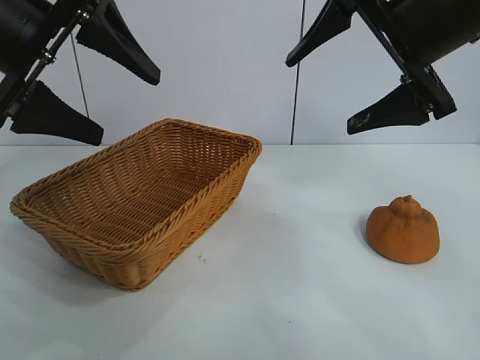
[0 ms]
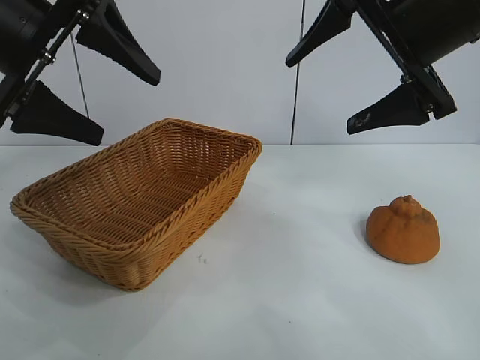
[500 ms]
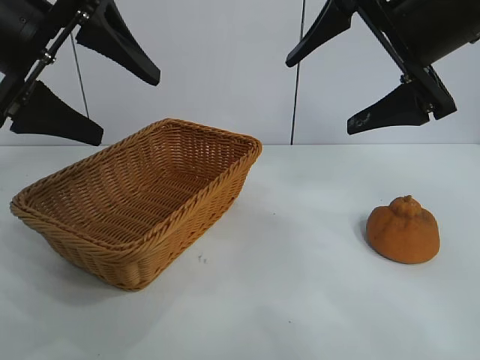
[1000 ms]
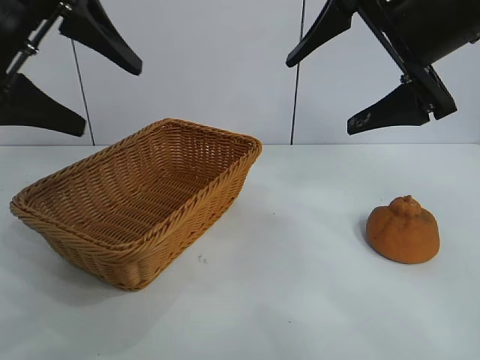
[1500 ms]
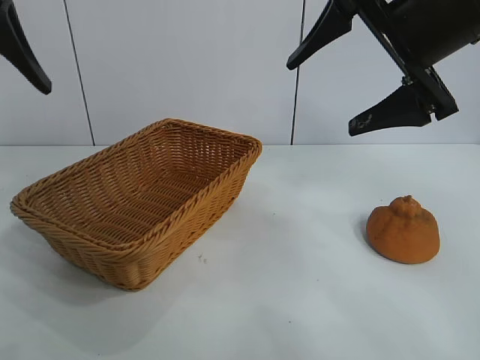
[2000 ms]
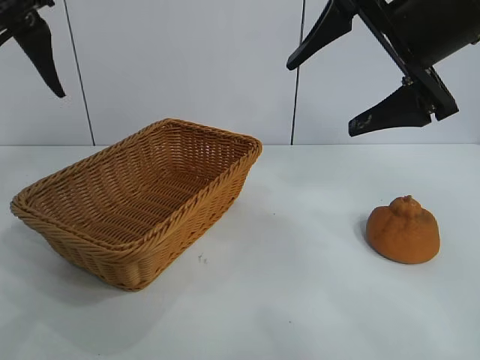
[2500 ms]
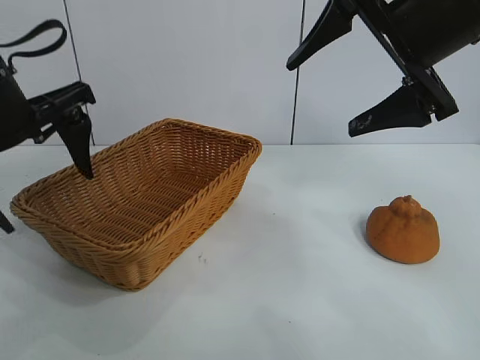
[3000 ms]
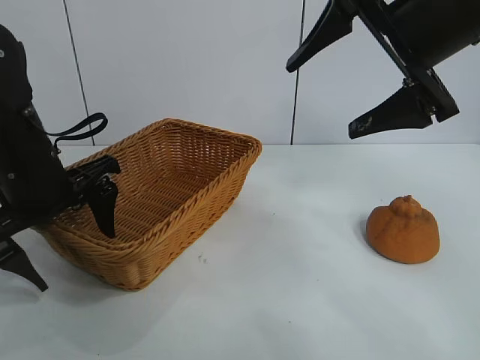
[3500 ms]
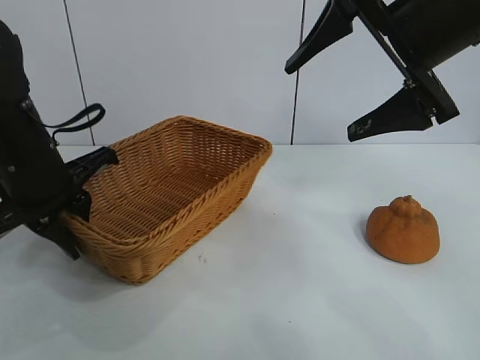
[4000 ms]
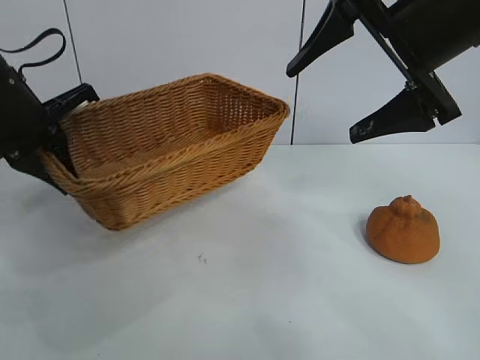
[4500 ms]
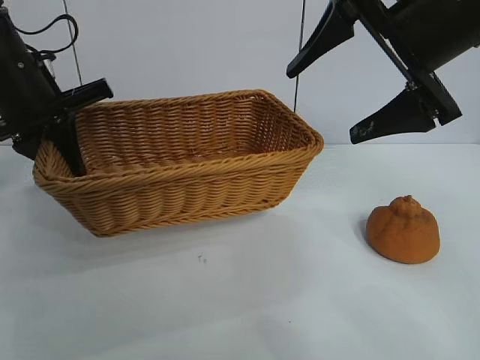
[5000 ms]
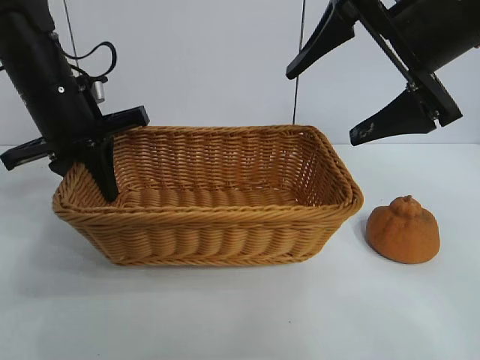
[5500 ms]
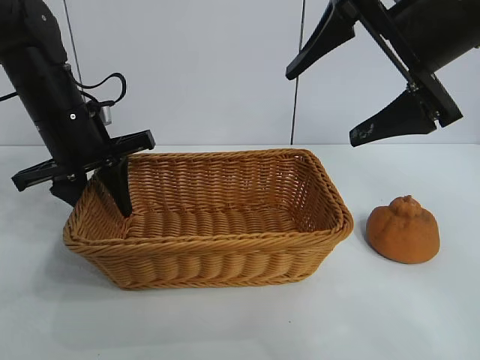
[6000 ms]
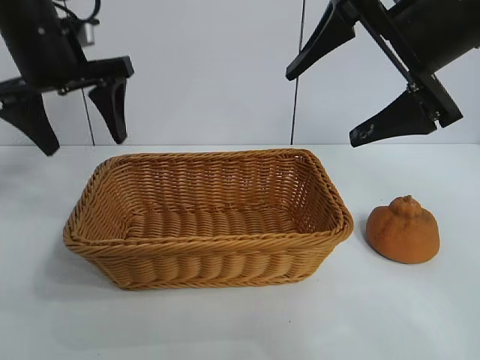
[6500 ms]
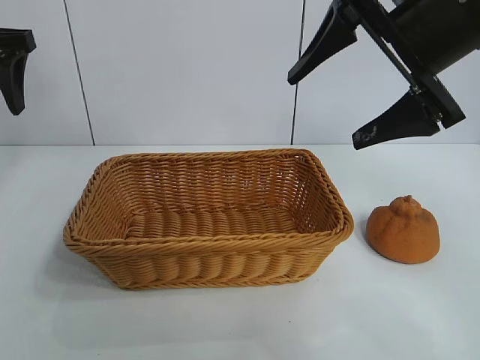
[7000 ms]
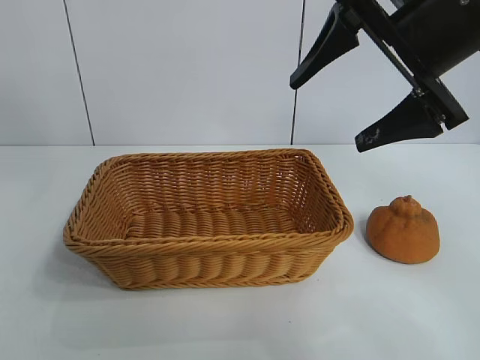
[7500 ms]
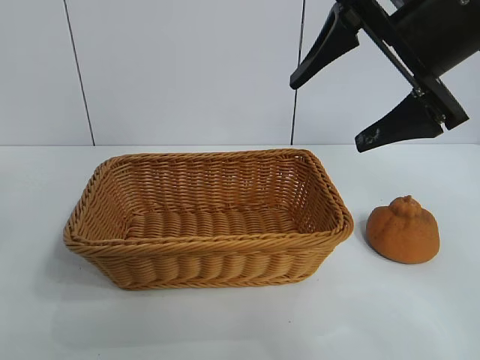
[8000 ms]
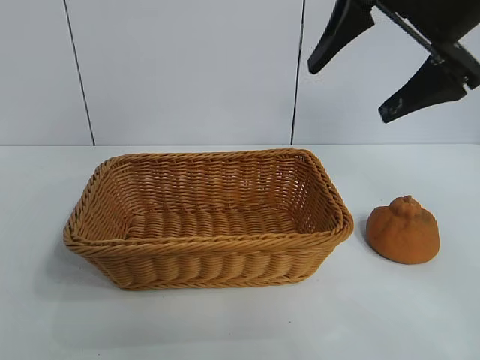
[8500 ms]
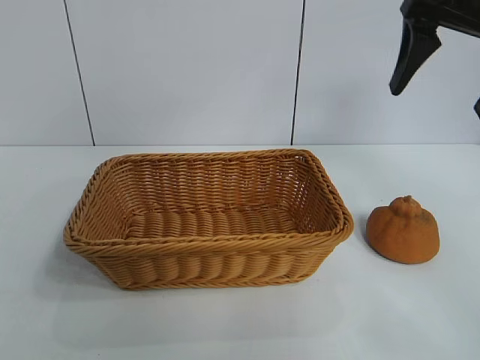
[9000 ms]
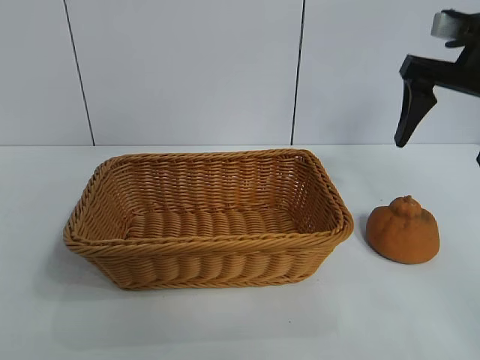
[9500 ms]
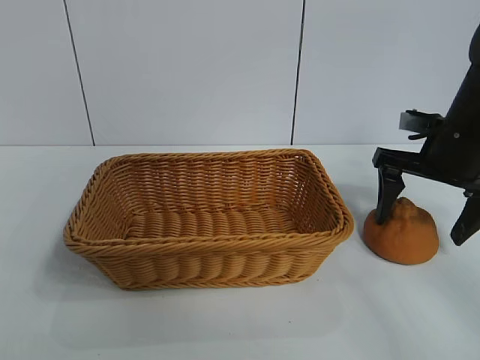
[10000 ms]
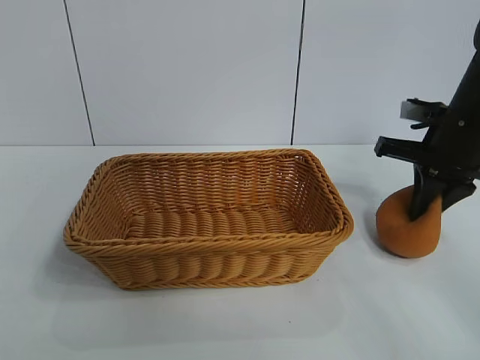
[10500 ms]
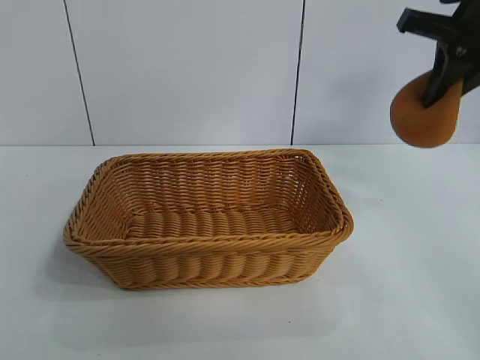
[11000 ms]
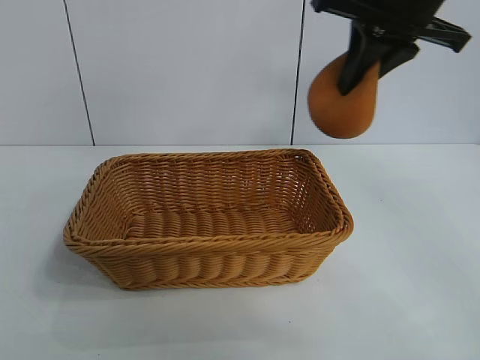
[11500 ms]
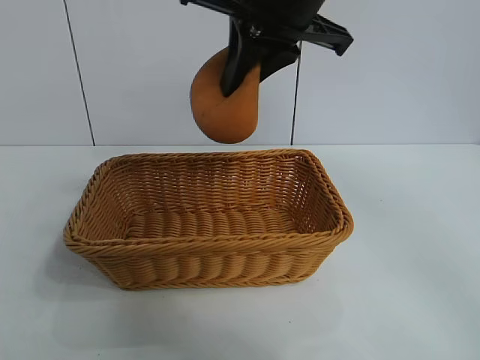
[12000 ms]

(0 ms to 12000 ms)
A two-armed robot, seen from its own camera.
Task of the whole recording: pick up the orange and put it into the basket.
Step, 1000 ms - 4000 ms: Grasp the basket with left gripper.
Step, 4500 ms - 6000 ms: Place the basket in the center of view with left gripper.
Step, 6500 ms - 10000 ms: Grasp the orange with right gripper.

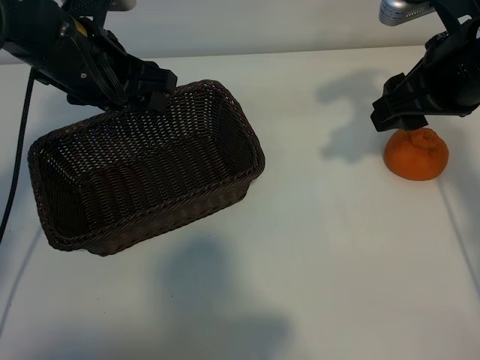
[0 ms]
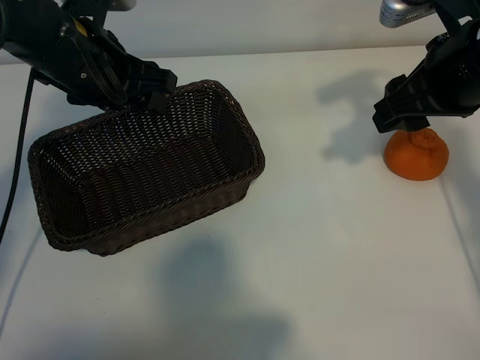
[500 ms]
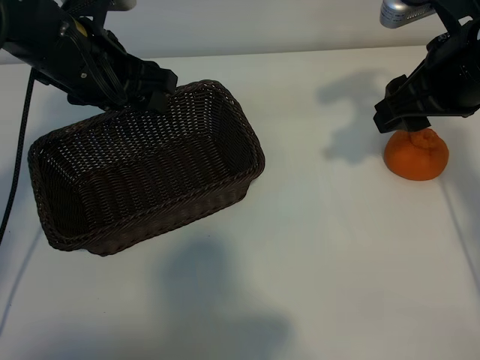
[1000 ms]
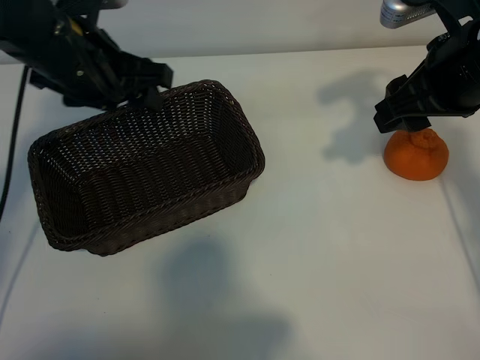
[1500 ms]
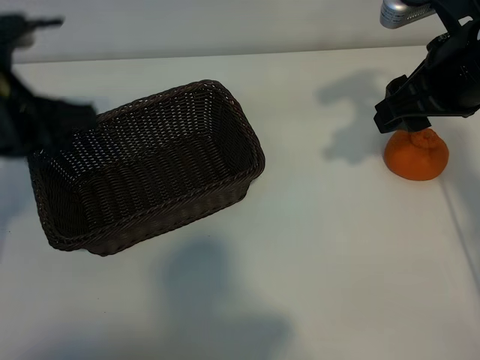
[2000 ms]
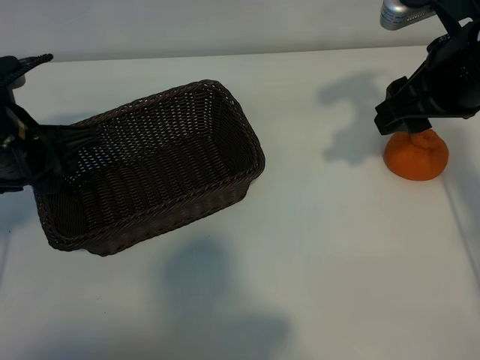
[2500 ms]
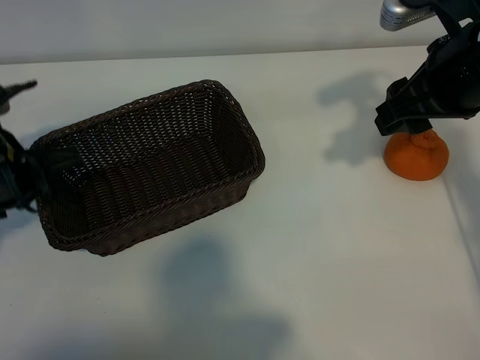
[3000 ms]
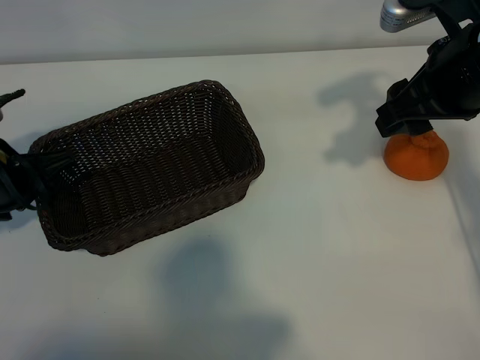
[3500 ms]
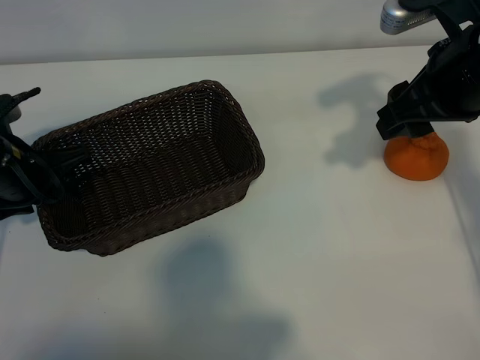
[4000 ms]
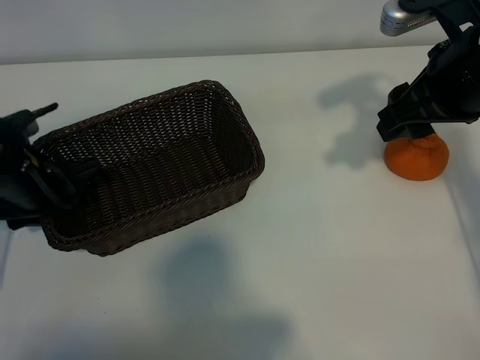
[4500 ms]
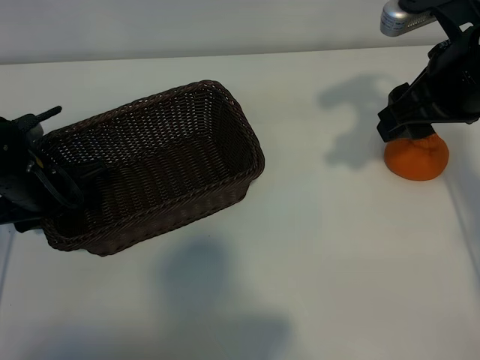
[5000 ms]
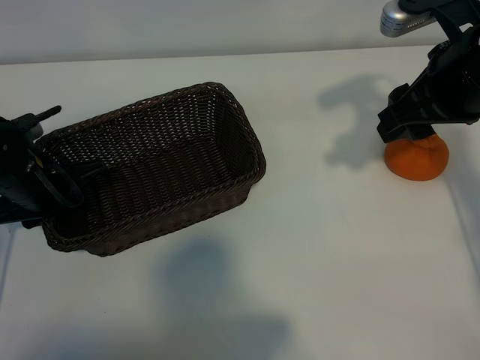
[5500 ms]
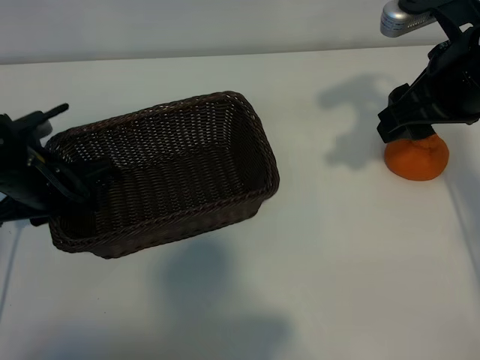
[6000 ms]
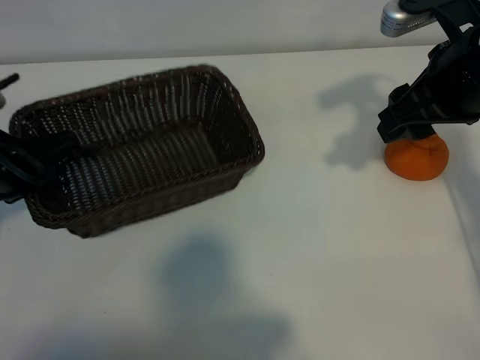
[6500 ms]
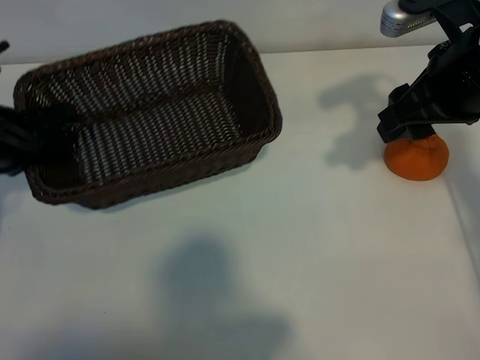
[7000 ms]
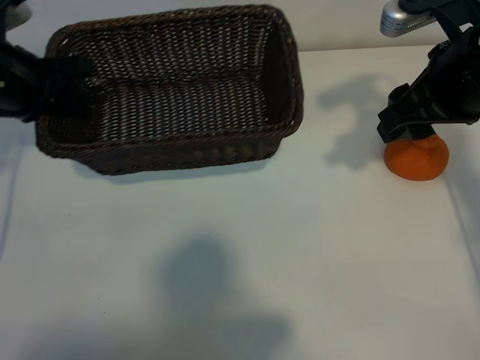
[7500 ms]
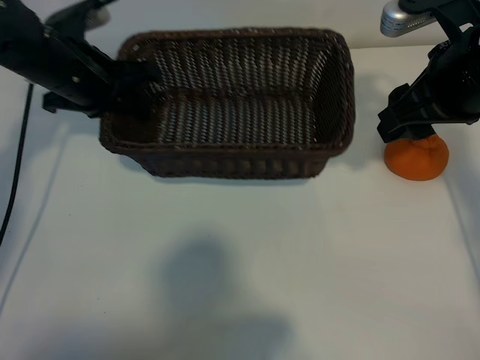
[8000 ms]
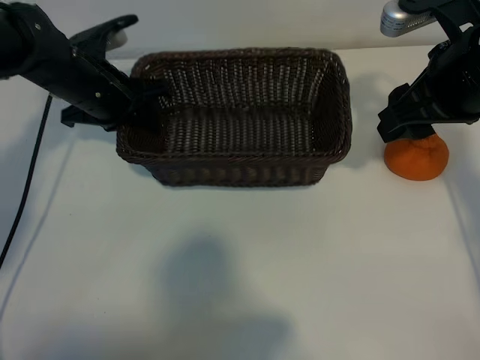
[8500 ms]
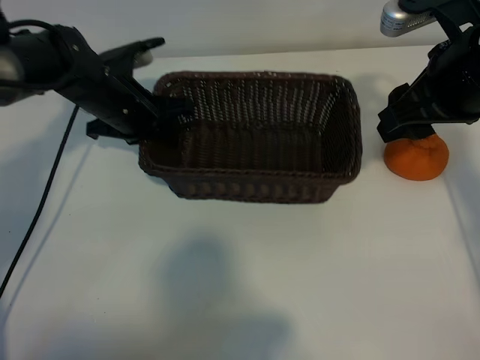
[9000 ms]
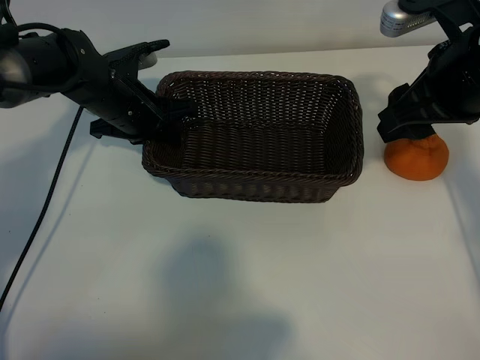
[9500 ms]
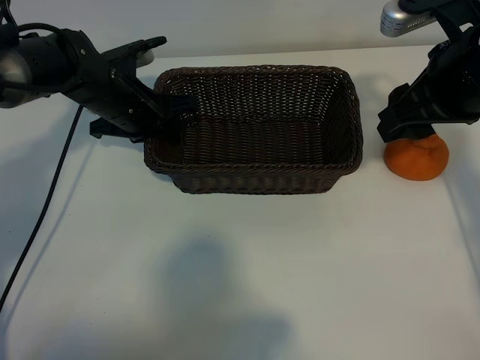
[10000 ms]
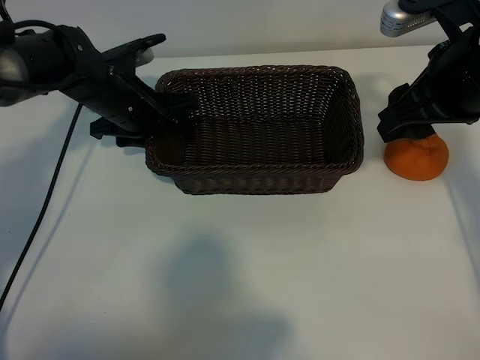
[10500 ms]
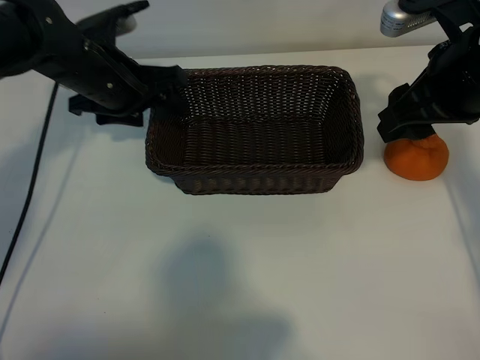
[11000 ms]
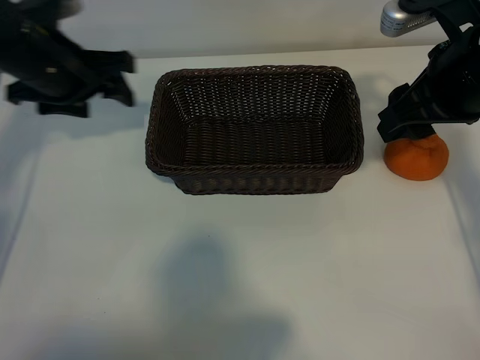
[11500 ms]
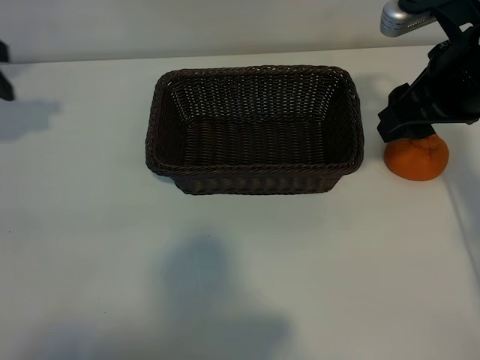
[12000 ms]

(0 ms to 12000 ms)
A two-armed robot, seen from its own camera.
Task of the whole recording: pick up the orange and put it into the basket.
Step, 1500 ms - 5000 ms: Grasp the basket with left gripper.
Step, 5500 ms - 10000 ms: Place the basket in the center of view with left gripper.

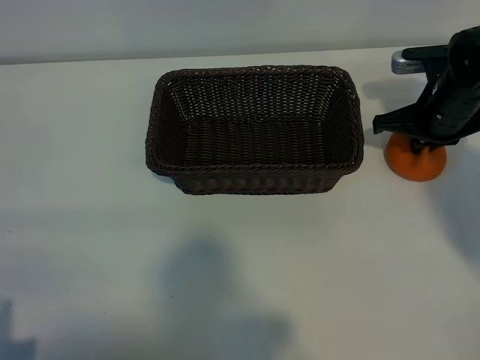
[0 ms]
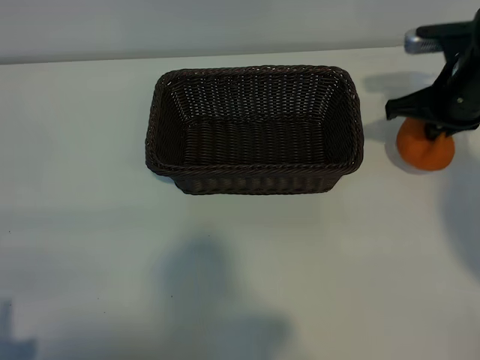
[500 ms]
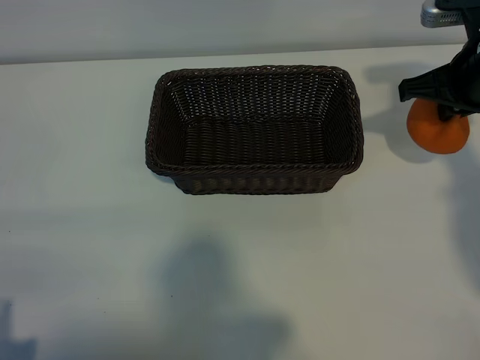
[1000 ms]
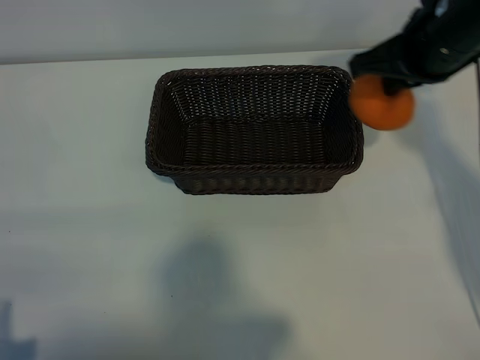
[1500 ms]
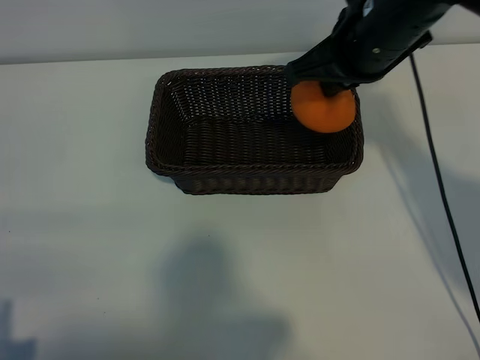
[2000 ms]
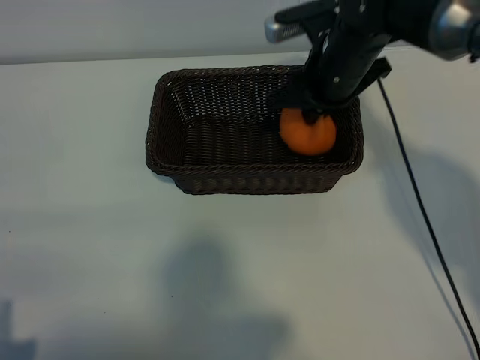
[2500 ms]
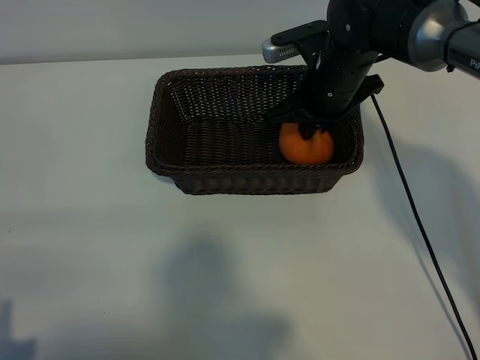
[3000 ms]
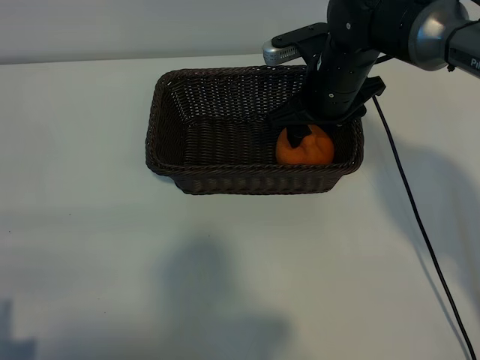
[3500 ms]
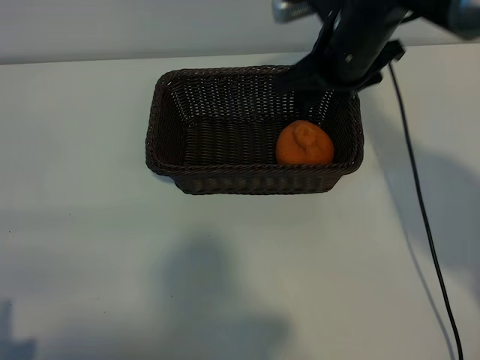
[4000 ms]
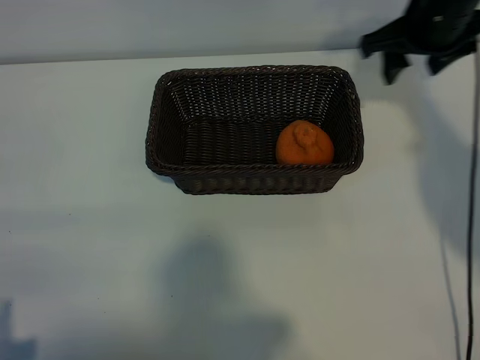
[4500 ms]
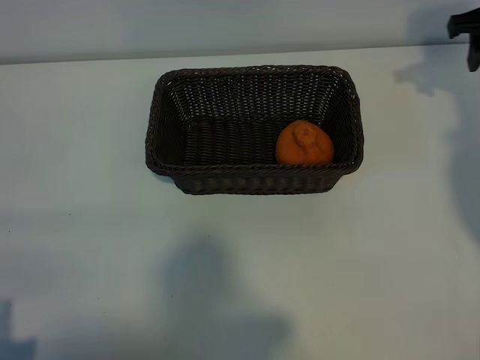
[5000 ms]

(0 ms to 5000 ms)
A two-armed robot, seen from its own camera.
Task of the whole recording: pick up the orange and put it into the basket.
Step, 500 ms - 3000 ms: Place the orange in the basket with right gripper.
